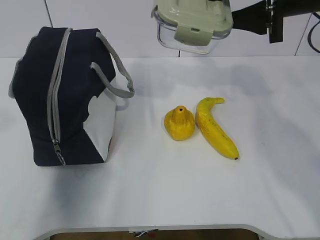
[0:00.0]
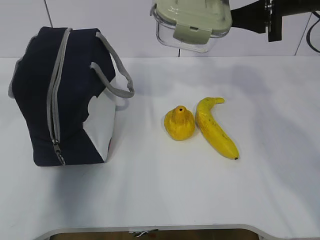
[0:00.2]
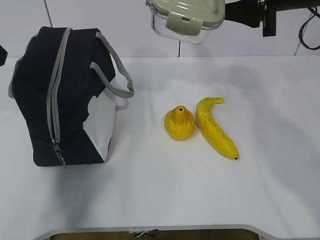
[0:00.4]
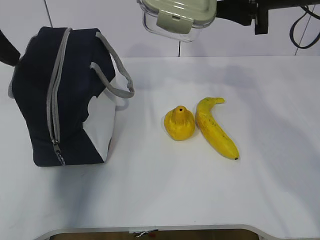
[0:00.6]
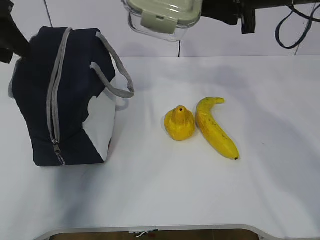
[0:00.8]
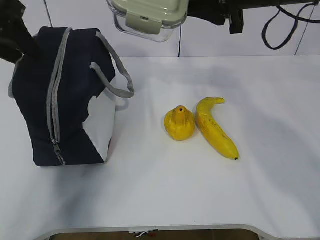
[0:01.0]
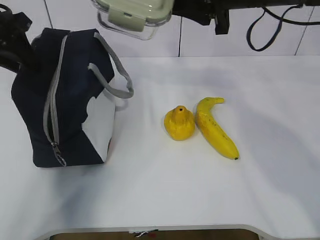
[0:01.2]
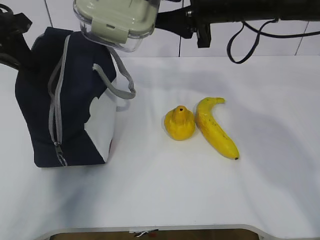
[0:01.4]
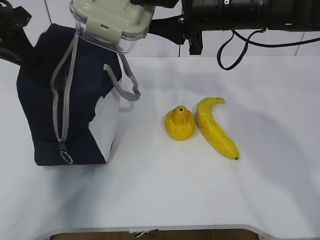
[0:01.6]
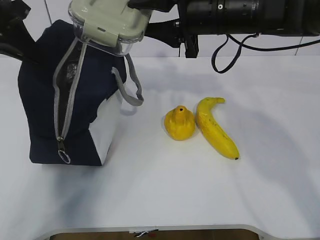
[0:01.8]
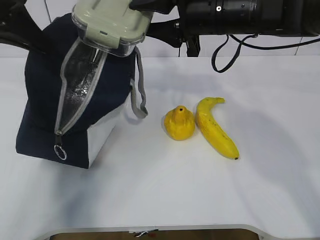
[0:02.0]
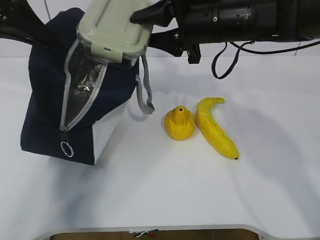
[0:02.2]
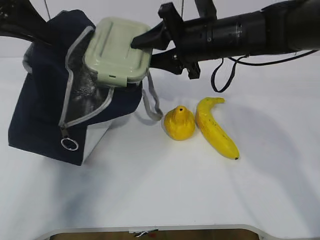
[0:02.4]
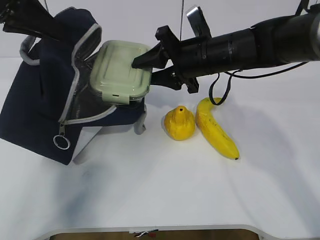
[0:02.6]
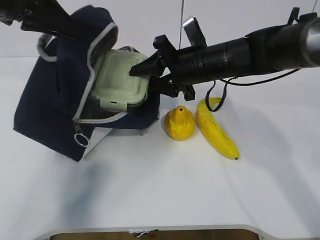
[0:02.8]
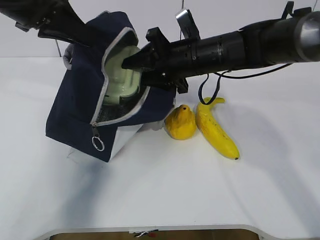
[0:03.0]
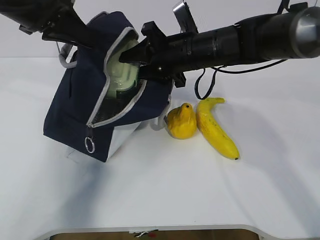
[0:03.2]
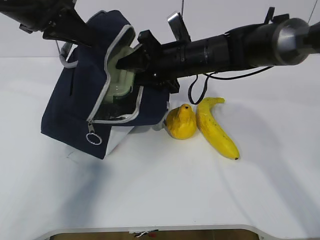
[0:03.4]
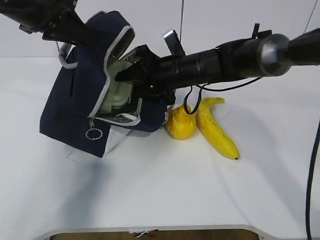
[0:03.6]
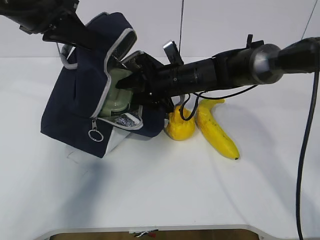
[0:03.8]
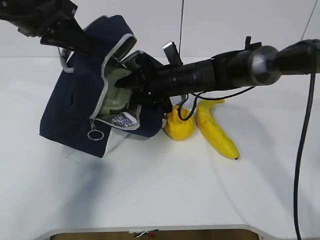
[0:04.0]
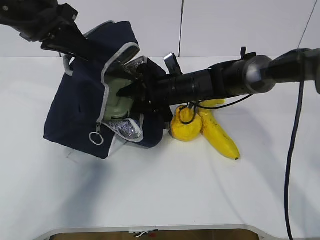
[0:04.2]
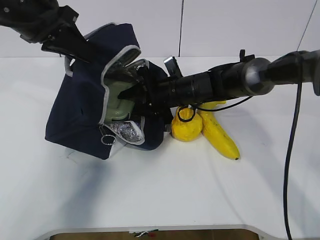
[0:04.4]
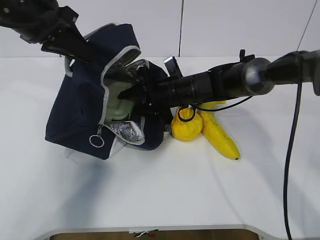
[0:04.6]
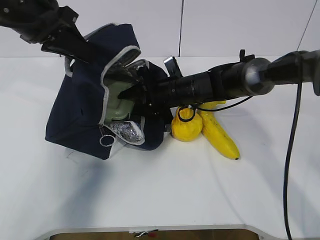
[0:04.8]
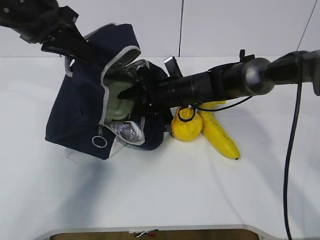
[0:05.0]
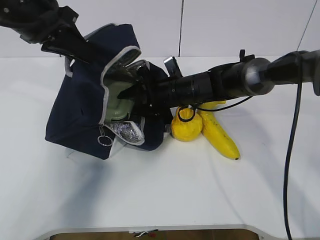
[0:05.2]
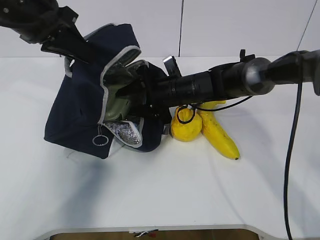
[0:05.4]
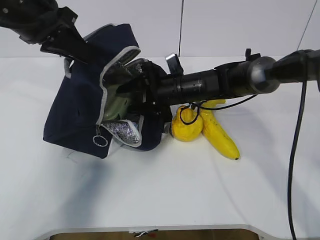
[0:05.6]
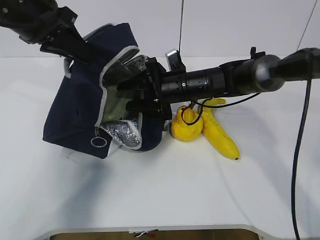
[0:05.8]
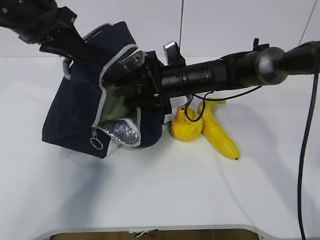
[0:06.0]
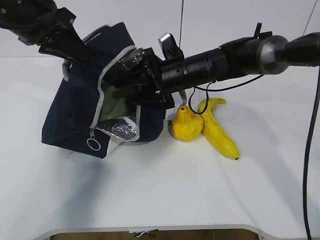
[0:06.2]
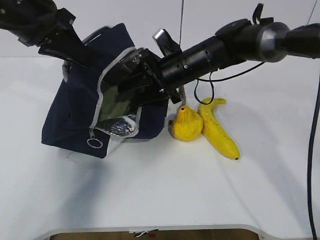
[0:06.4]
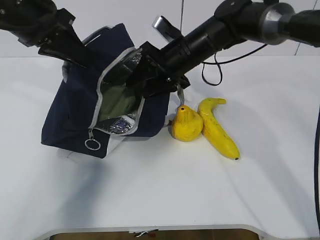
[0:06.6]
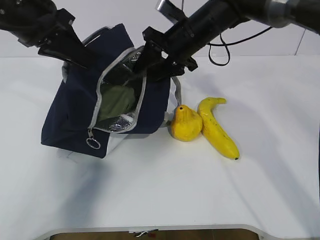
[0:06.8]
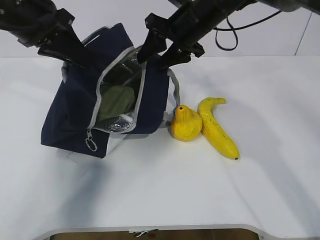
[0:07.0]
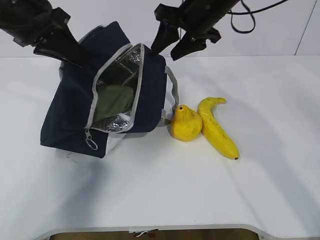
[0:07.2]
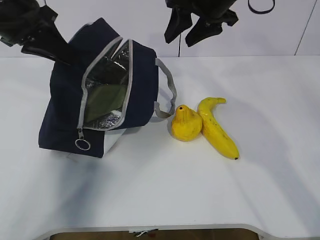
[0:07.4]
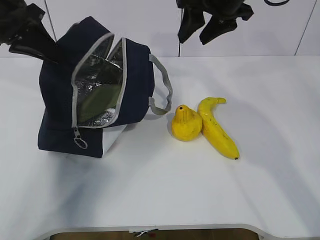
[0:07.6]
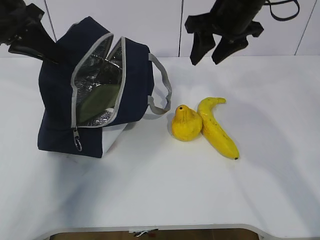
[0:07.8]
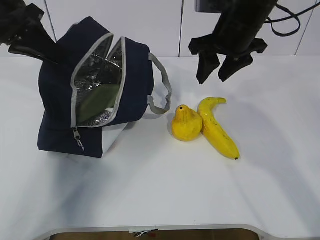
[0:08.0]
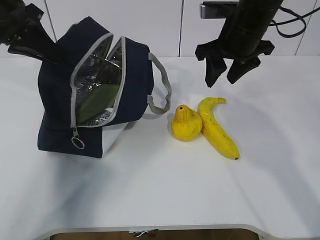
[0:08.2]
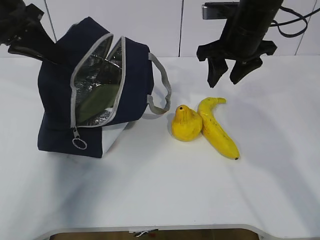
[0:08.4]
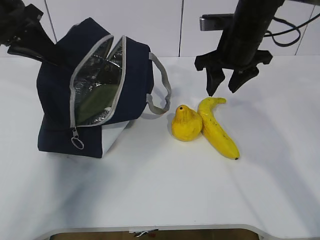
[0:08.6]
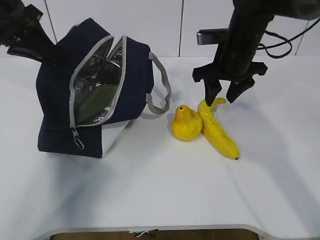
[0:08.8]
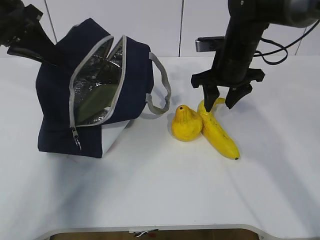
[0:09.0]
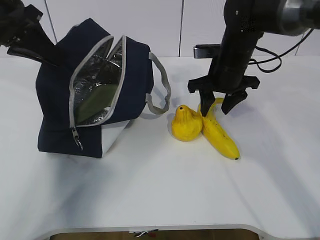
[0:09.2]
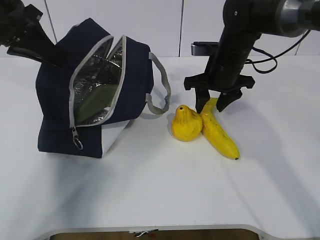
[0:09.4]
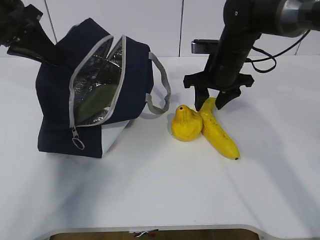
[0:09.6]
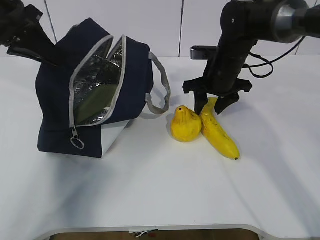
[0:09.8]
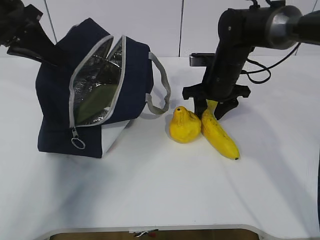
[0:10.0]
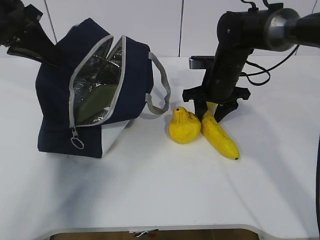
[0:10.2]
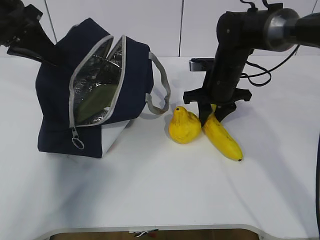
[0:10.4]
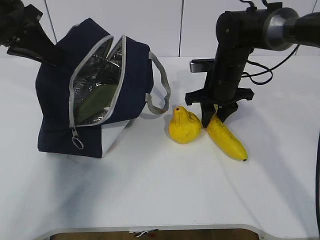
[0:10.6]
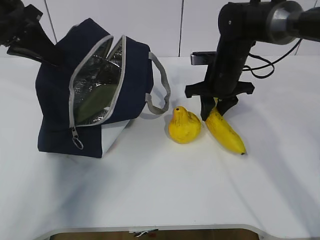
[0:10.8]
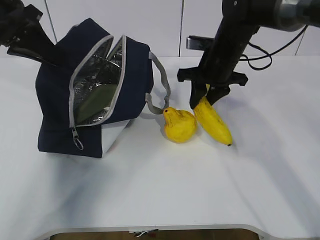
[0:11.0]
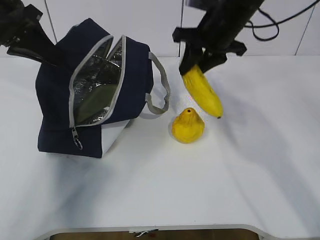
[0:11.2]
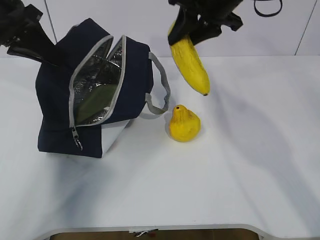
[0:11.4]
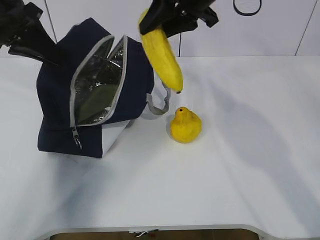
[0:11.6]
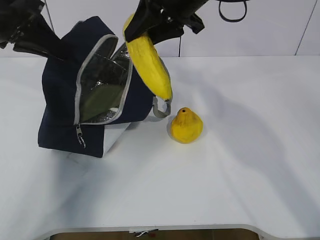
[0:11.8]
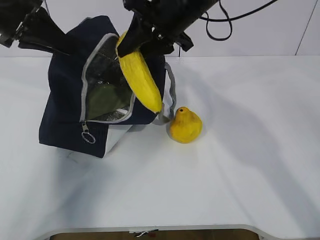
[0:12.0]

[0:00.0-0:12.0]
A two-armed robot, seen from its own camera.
Step, 0.0 to 7.2 s: Place the box into the package with the right gripper.
Step, 7.4 to 10.4 s: Grasp the banana with the right gripper.
0.0 to 1.6 s: The left gripper is displaced forward by approximately 20 cm, and closes, while the right gripper shifts about 10 cm to the left.
1.6 to 3.0 s: The left gripper moves to the right, roughly 5 cm, while the right gripper goes roughly 10 cm downward.
3.0 to 4.4 s: The right gripper moves downward, about 10 cm.
4.4 to 6.0 s: There are only small adjustments of the grippers.
6.0 to 7.6 s: The right gripper goes about 20 cm upward.
7.6 to 9.0 s: The right gripper is displaced downward by roughly 10 cm.
9.0 to 10.4 s: The right gripper is displaced downward by about 5 cm.
10.4 to 12.0 s: The right gripper moves upward and to the left, roughly 15 cm.

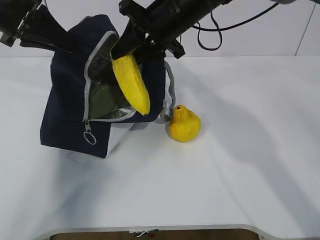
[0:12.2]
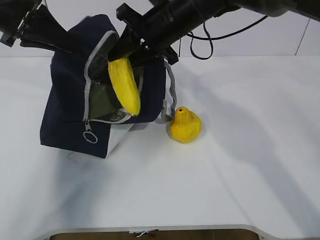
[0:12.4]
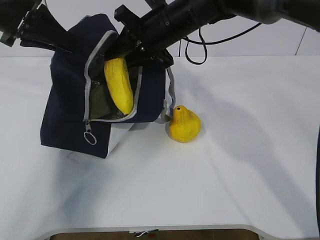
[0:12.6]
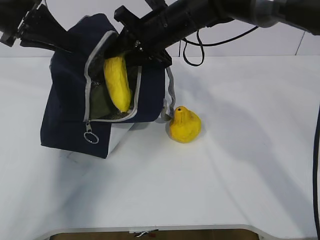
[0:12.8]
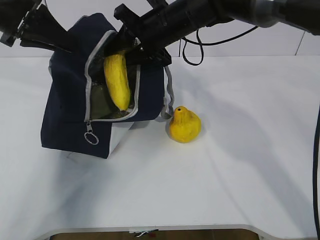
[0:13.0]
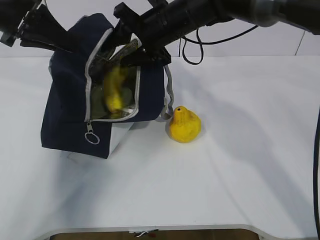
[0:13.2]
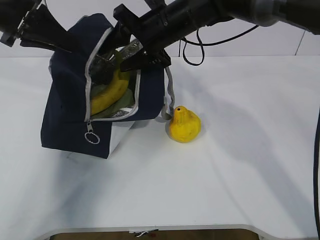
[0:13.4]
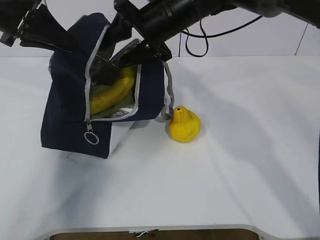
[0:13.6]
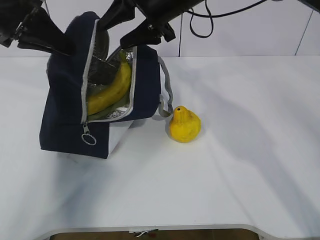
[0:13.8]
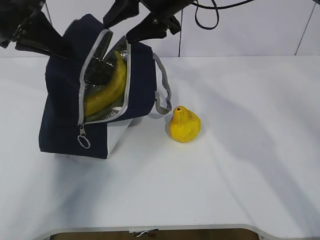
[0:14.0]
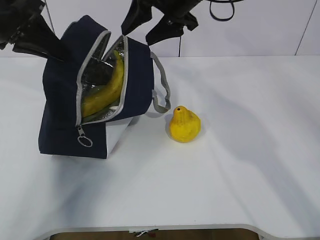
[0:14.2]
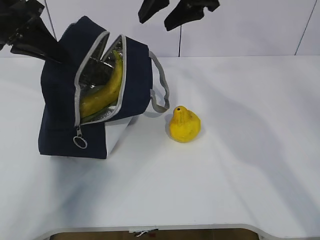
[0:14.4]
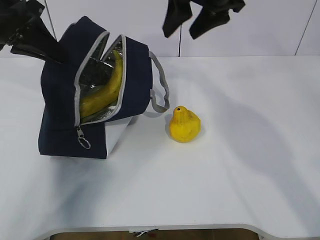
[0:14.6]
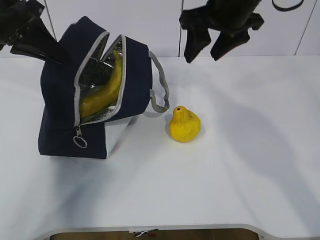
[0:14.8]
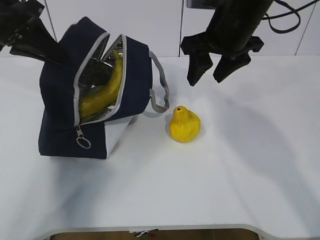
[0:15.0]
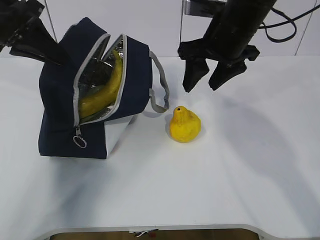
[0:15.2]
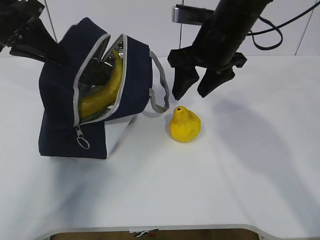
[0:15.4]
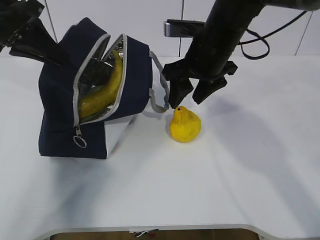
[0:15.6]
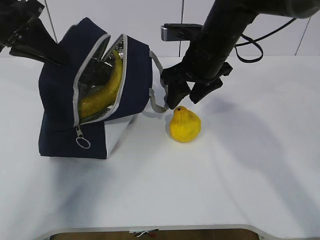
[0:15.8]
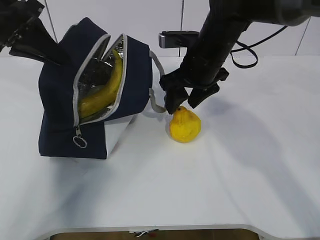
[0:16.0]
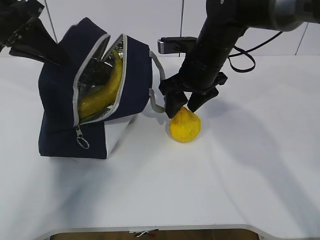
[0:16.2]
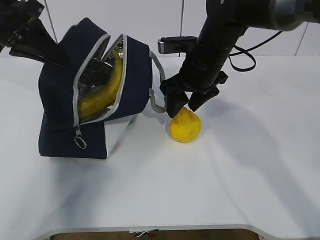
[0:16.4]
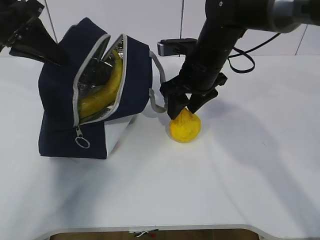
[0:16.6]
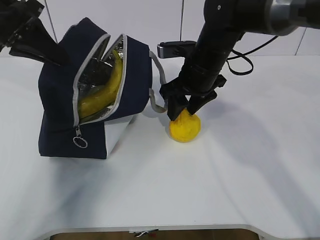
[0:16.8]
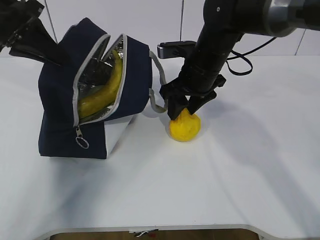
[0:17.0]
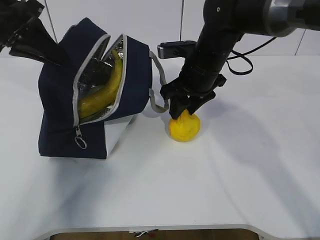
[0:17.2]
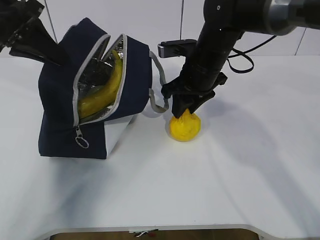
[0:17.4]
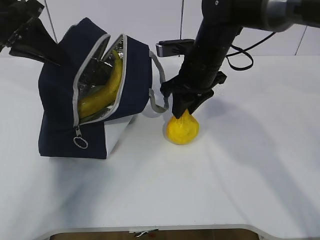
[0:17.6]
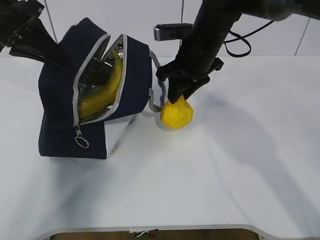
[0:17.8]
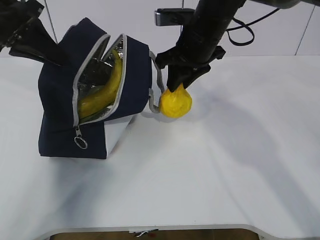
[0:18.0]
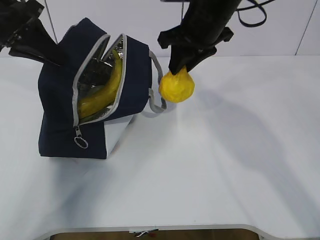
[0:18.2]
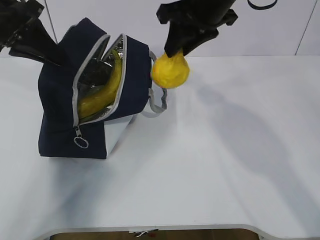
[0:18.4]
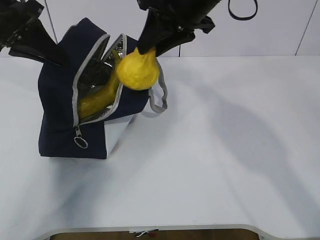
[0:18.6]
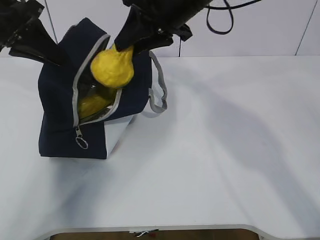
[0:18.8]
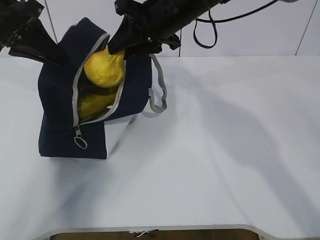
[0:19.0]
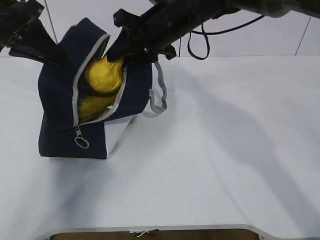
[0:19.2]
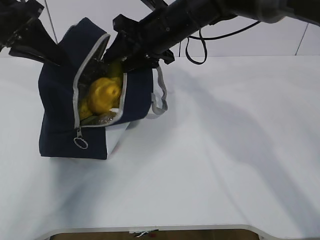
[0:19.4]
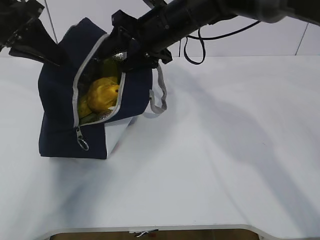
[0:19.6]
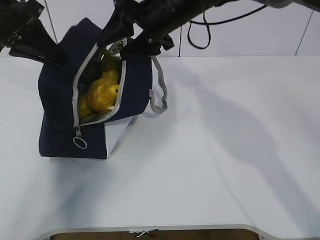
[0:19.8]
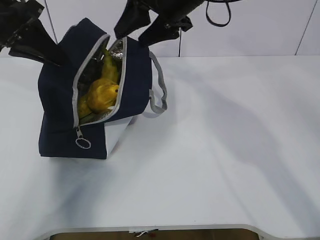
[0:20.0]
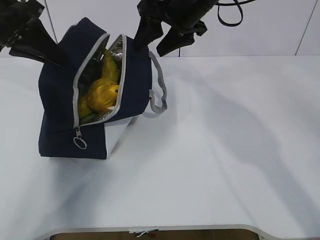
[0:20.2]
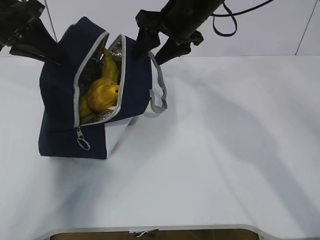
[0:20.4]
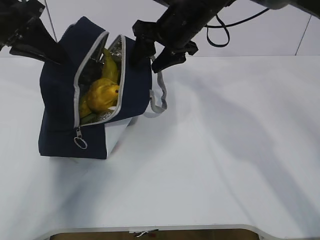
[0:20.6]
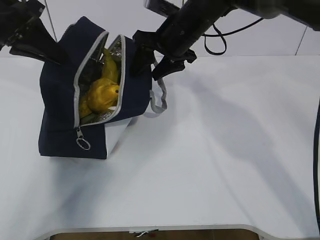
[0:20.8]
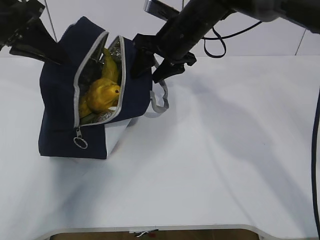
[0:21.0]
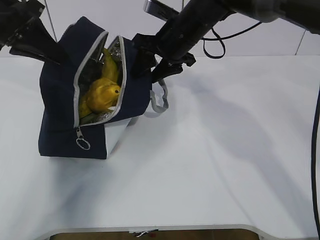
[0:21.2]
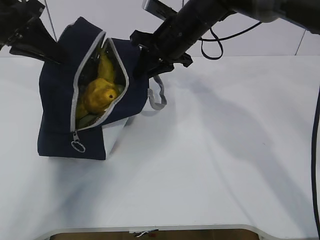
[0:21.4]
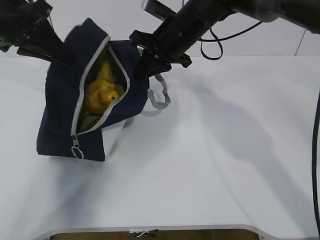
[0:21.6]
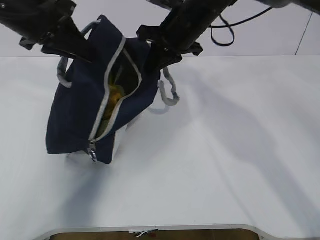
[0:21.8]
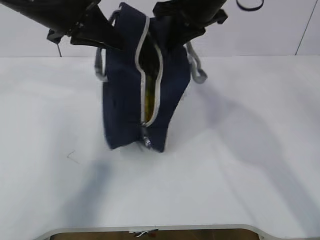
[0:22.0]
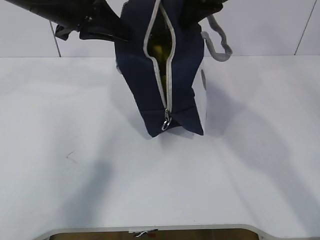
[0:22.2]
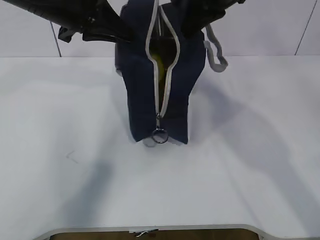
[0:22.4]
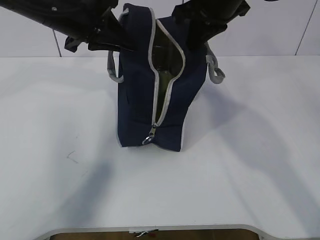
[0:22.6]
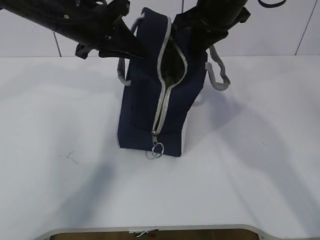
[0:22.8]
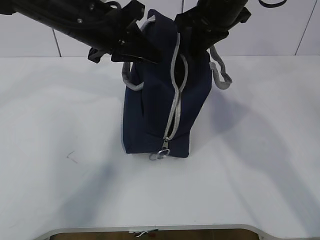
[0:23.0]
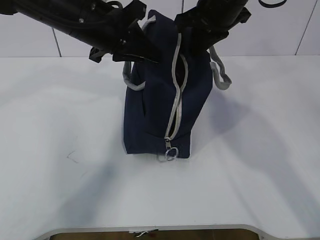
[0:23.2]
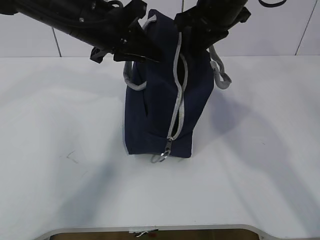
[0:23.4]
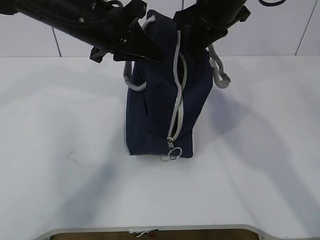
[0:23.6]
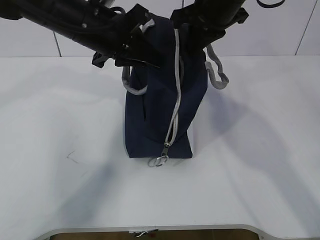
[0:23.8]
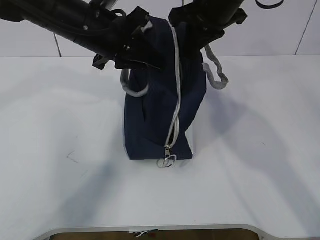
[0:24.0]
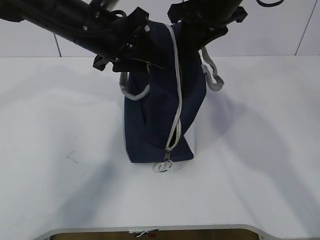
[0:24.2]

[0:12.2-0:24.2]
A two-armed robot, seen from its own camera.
Step, 12.2 to 14.4 s: Place the banana into the package with the right gripper.
Step, 14.6 to 17.4 s: Grasp the pear with the right gripper.
Step, 17.6 to 20.0 s: Place the pear into the package with the right gripper.
12.2 to 13.8 s: The right gripper opens up.
13.8 to 15.2 s: The right gripper travels to the right and backward by roughly 10 cm.
15.2 to 16.6 s: The right gripper goes approximately 5 cm downward.
16.6 to 18.2 s: The right gripper shifts roughly 10 cm upward, and closes.
18.2 to 19.8 s: The right gripper moves roughly 5 cm, and opens its fingers.
19.8 to 21.2 s: The right gripper moves some 5 cm.
21.2 to 22.6 s: The left gripper is displaced to the right by about 10 cm, while the right gripper is displaced upward and to the right by approximately 10 cm, and closes its fingers.
22.6 to 24.2 s: The right gripper opens up. Meanwhile the left gripper shifts by roughly 5 cm, and opens.
